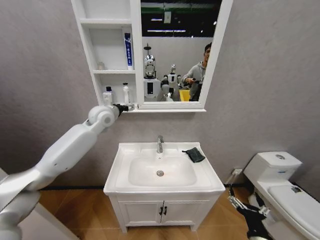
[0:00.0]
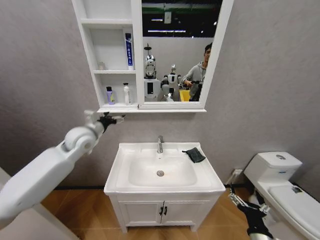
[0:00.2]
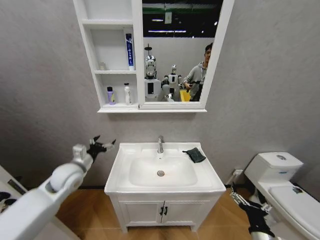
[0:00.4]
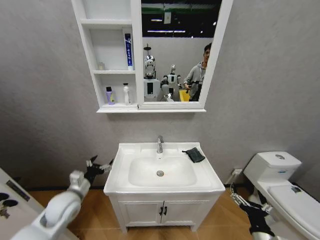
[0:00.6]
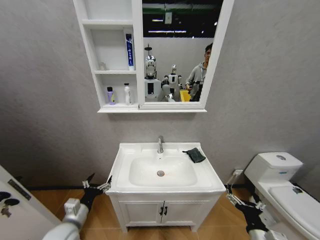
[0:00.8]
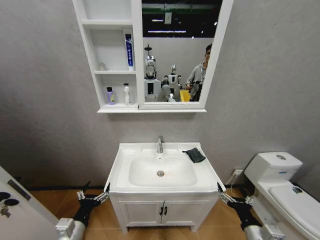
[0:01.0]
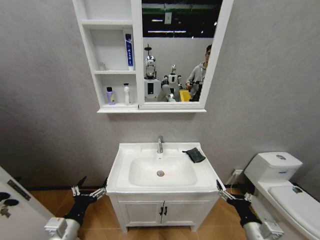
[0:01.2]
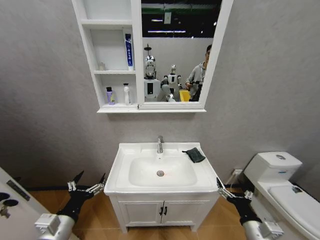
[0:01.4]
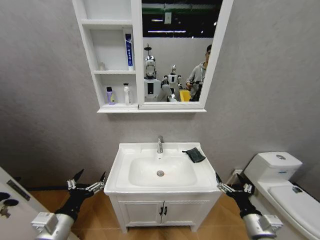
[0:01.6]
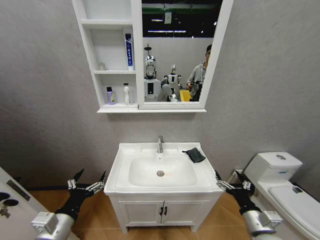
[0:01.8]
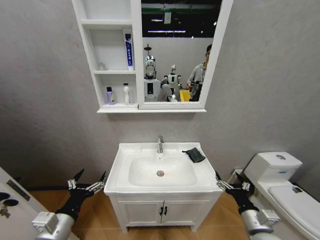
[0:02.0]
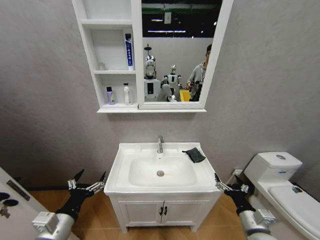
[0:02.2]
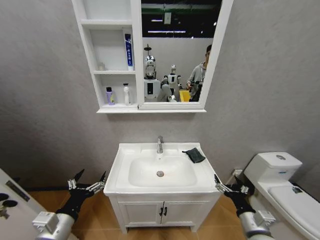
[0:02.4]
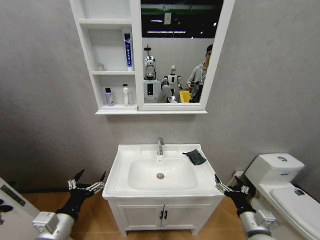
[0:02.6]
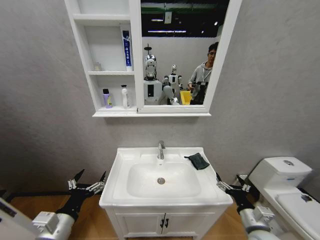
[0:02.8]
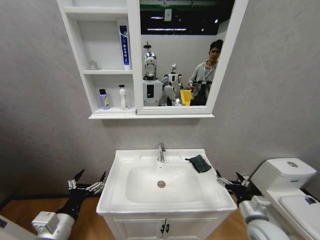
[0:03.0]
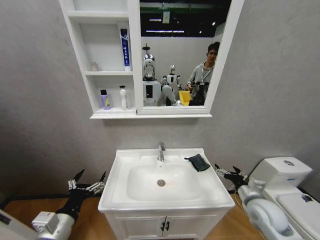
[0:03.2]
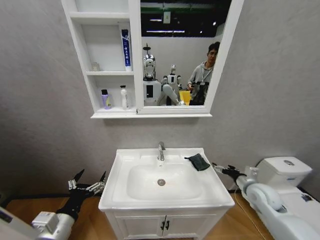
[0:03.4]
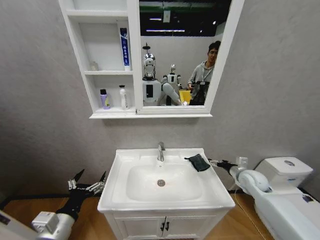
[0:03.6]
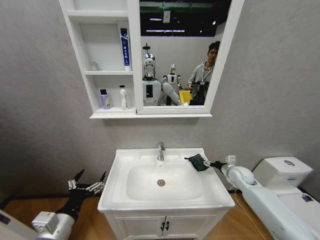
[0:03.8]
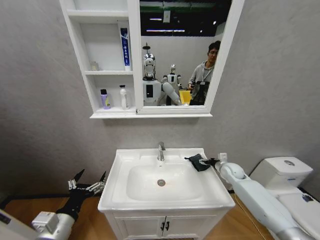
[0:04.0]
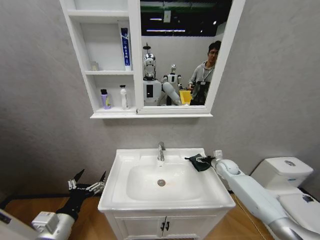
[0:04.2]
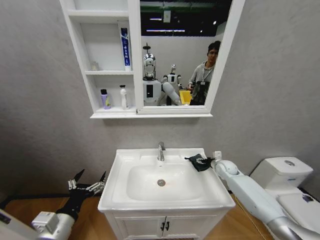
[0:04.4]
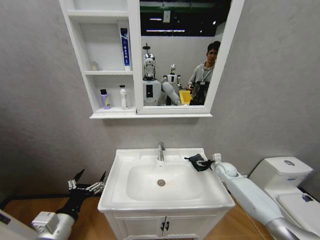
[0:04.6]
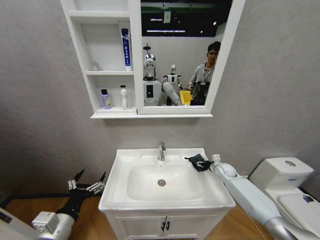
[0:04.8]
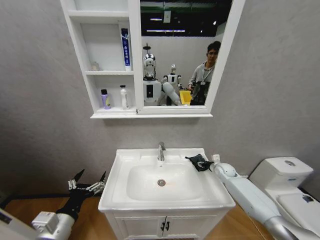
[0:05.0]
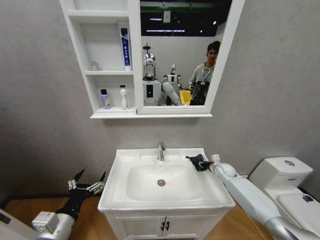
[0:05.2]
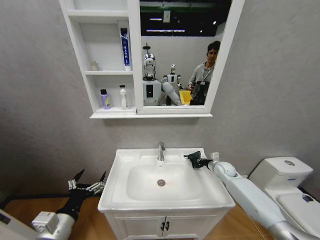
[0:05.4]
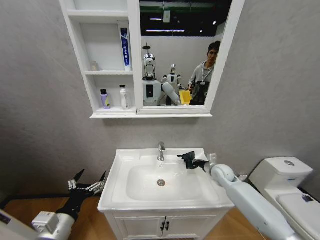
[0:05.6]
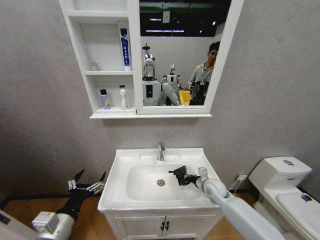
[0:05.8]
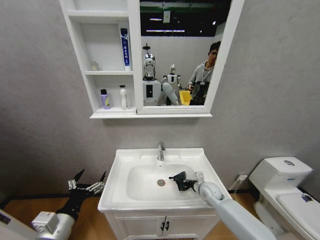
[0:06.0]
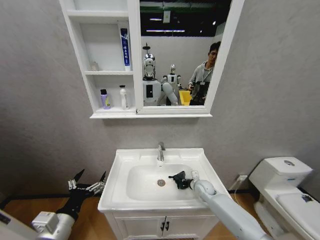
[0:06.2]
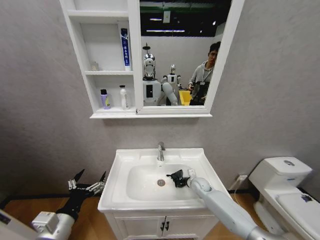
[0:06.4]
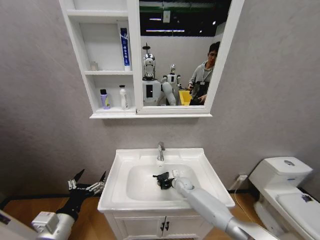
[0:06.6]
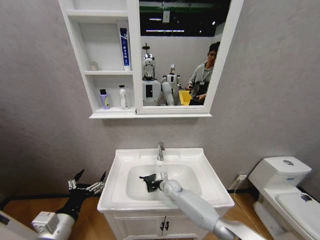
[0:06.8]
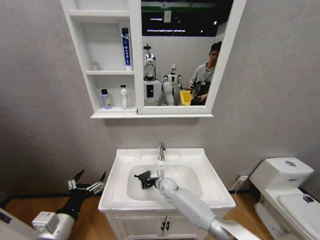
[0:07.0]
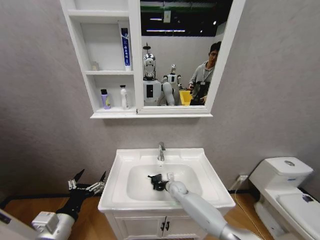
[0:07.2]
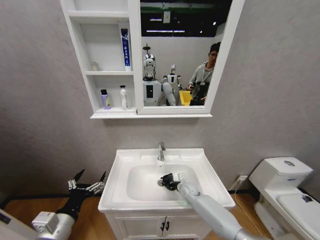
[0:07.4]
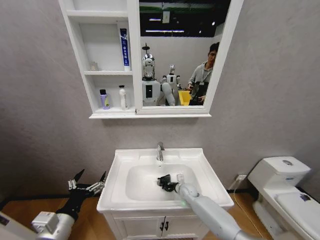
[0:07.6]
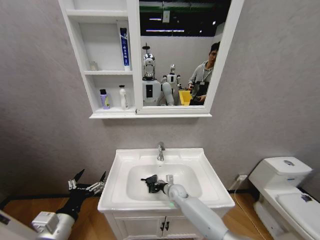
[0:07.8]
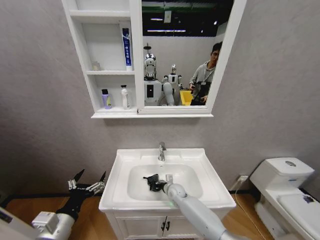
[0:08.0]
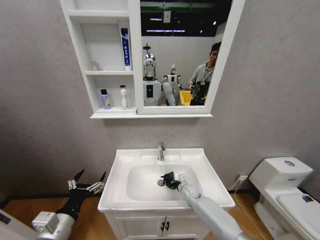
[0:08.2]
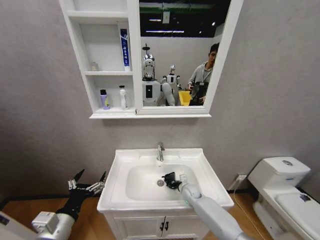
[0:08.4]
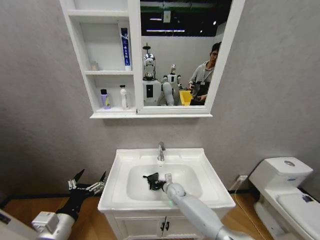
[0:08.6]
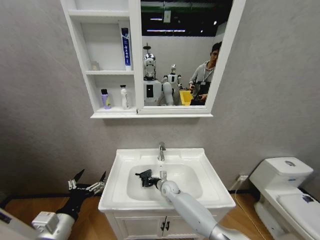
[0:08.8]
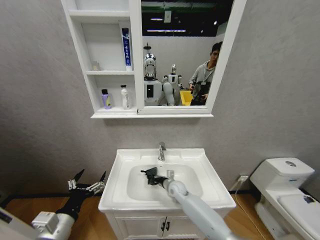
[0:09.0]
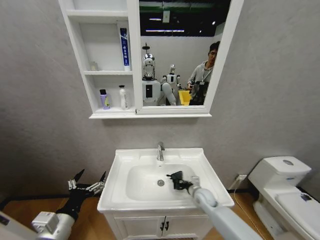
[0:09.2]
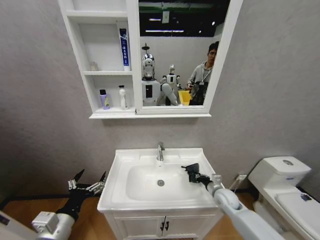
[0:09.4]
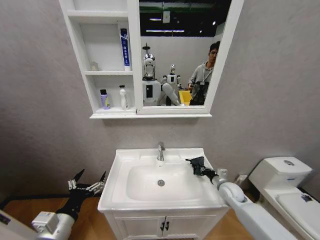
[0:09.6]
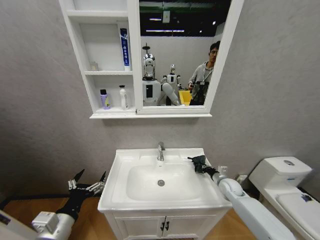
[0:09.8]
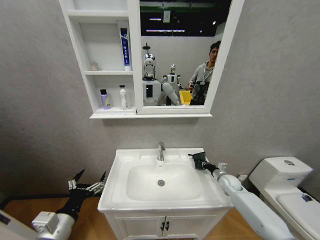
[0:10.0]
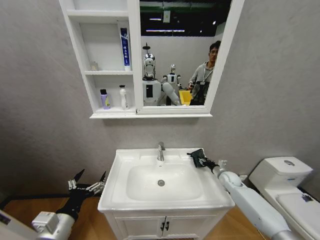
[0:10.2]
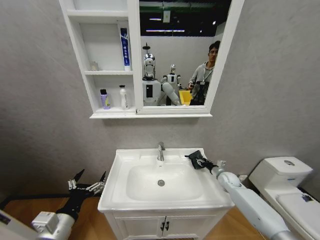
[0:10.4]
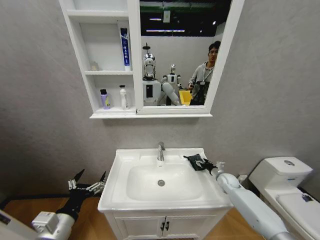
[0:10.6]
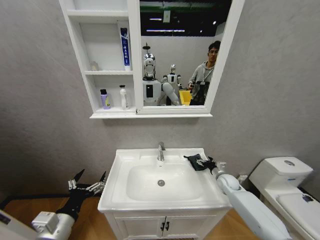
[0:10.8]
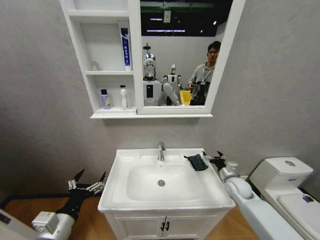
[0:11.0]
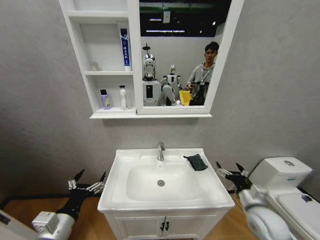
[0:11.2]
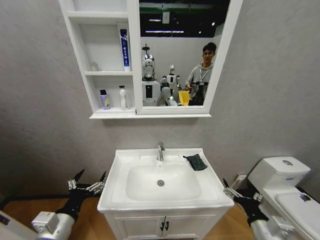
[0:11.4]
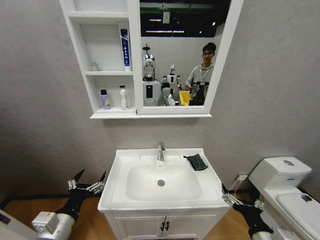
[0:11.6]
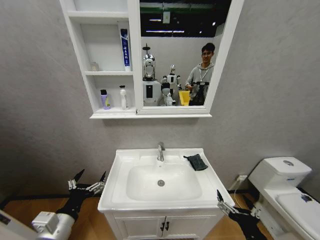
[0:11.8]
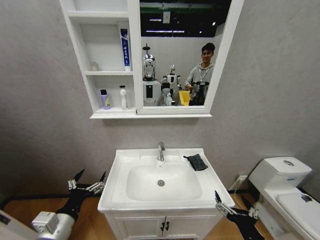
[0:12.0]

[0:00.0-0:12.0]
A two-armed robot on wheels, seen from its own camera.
Task of the whole recording: Move facial cleanser and shampoo from washbasin to cabinet, then wipe washbasin with towel.
0:00.0 to 0:01.6: The right gripper shifts roughly 5 cm forward, while the left gripper shifts roughly 40 cm backward and downward.
0:03.0 to 0:04.4: The right gripper goes approximately 30 cm forward.
0:04.4 to 0:06.0: The right gripper is displaced to the left, backward and downward by roughly 15 cm, and closes.
0:06.0 to 0:07.6: The right gripper shifts approximately 10 cm to the left and downward.
0:07.6 to 0:09.0: The right gripper swings left and right, roughly 15 cm each way, with 3 reversals.
0:09.0 to 0:10.4: The right gripper shifts approximately 25 cm to the right, and opens its fingers.
0:10.4 to 0:12.0: The right gripper travels backward and to the left by roughly 40 cm, and opens its fingers.

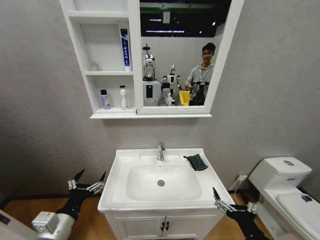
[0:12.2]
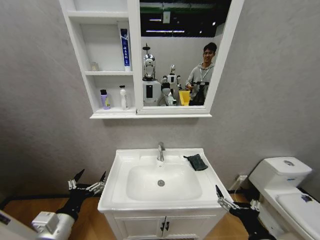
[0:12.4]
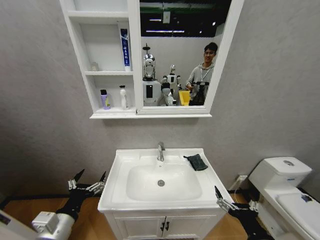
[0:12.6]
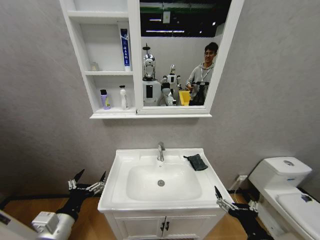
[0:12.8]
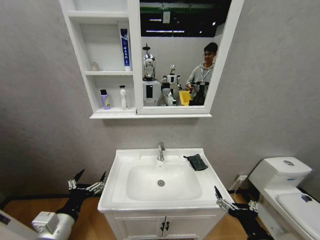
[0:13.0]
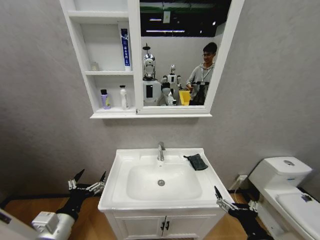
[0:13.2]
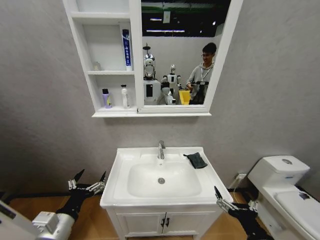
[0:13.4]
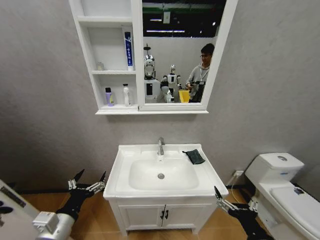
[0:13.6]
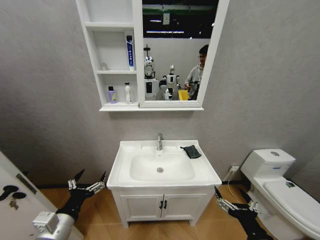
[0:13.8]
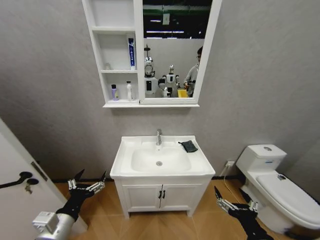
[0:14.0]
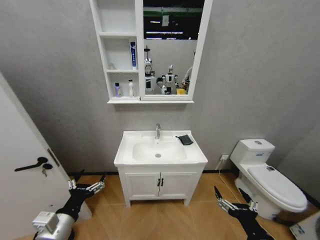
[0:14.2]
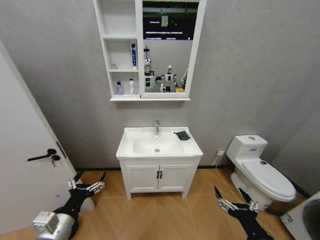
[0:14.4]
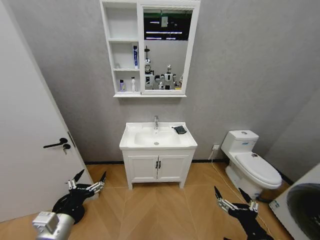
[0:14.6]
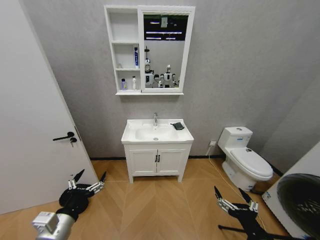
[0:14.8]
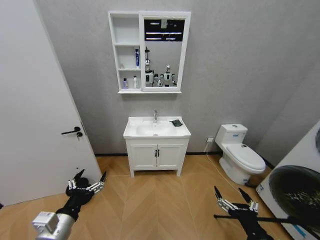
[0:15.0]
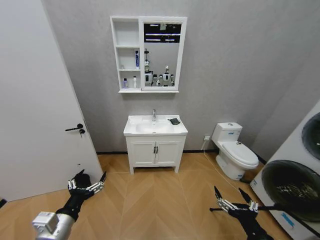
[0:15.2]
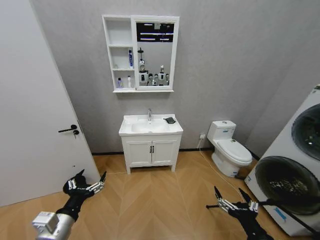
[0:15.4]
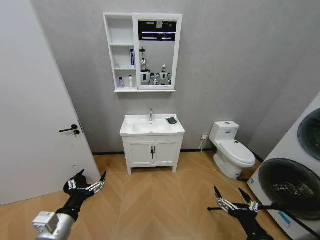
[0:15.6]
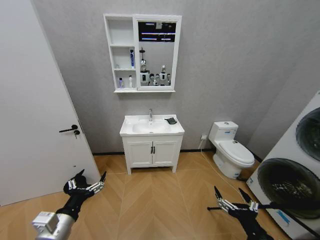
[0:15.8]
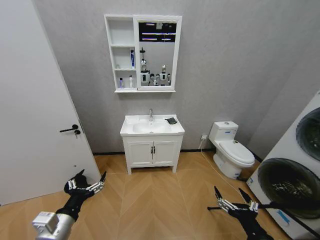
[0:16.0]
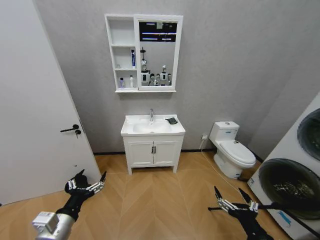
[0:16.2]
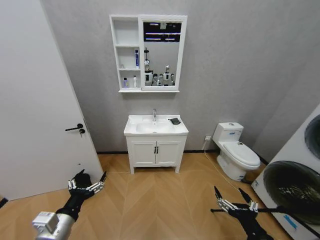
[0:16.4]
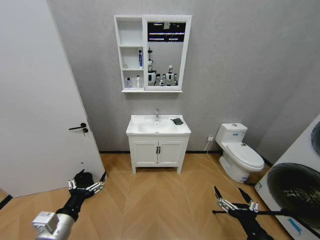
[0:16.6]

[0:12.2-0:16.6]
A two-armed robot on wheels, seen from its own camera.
Task of the whole recording: Move facial cleanser and shampoo from washbasin to cabinet, then wipe washbasin with towel.
0:12.2 to 0:13.6: Both grippers stay put.
0:15.2 to 0:16.6: The two grippers keep their place.
